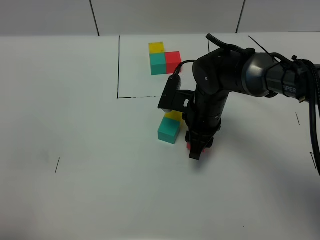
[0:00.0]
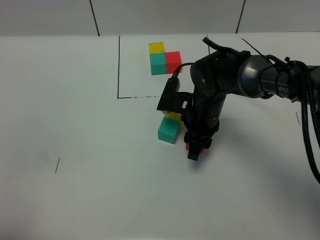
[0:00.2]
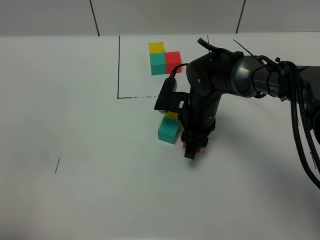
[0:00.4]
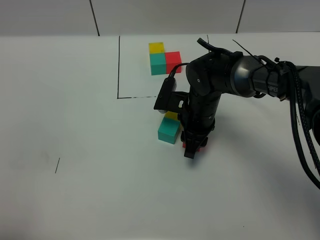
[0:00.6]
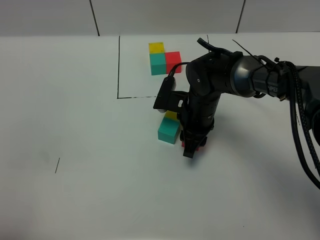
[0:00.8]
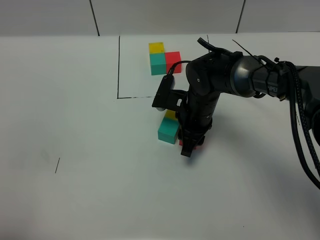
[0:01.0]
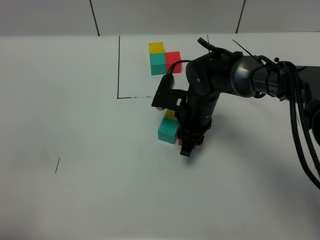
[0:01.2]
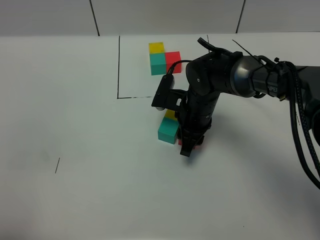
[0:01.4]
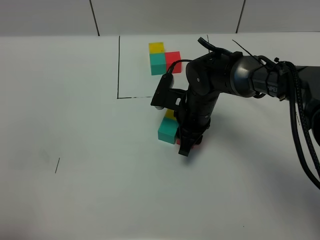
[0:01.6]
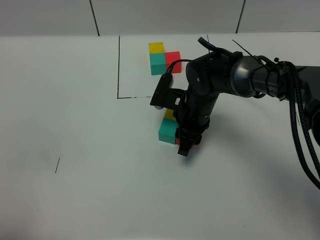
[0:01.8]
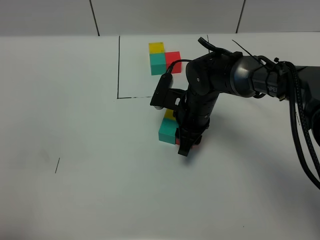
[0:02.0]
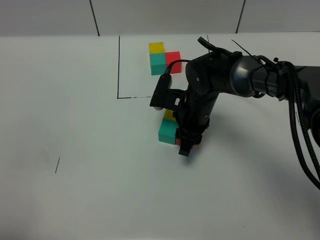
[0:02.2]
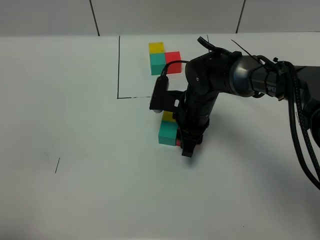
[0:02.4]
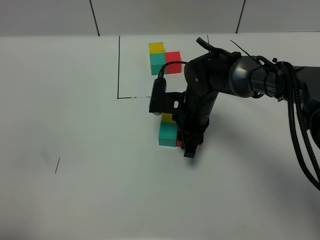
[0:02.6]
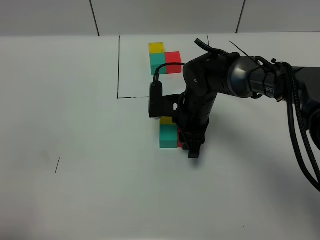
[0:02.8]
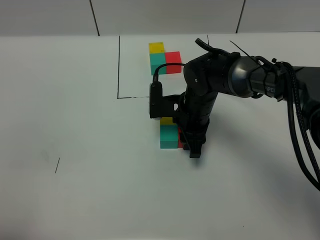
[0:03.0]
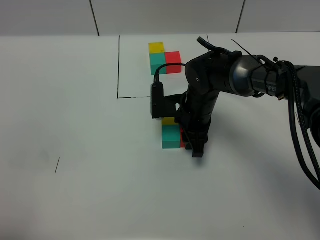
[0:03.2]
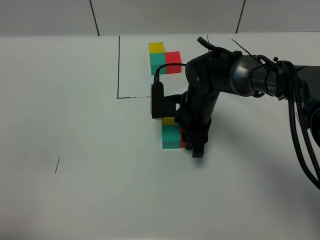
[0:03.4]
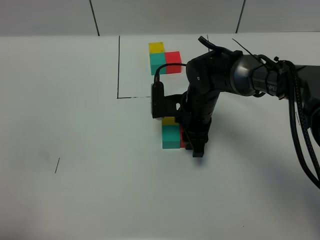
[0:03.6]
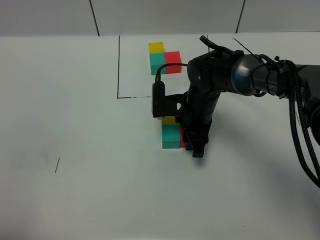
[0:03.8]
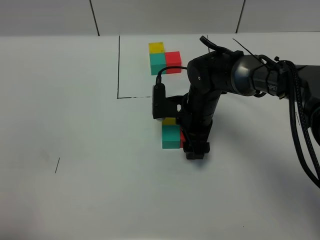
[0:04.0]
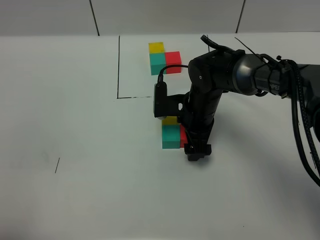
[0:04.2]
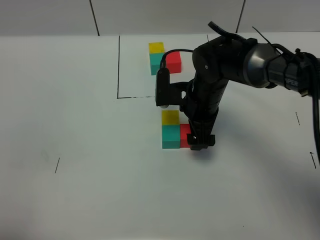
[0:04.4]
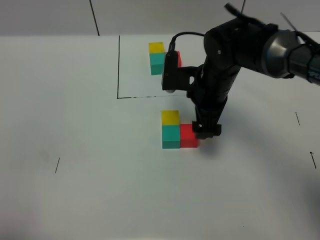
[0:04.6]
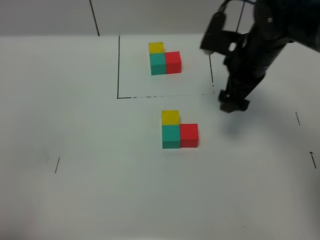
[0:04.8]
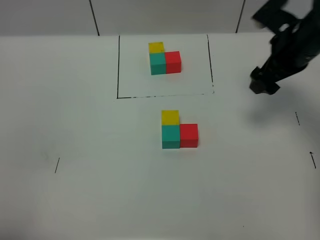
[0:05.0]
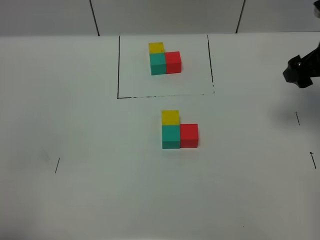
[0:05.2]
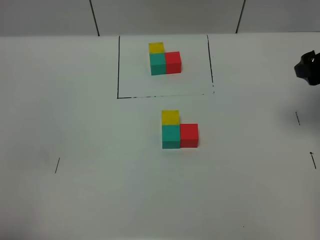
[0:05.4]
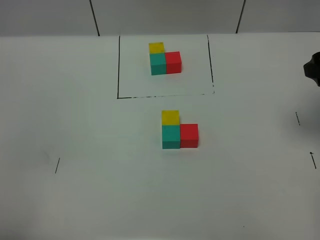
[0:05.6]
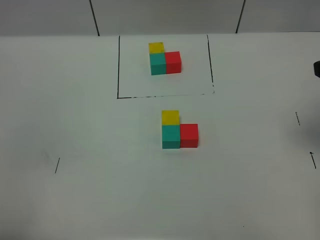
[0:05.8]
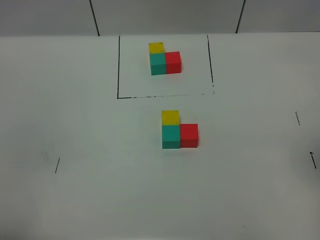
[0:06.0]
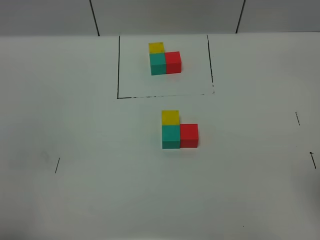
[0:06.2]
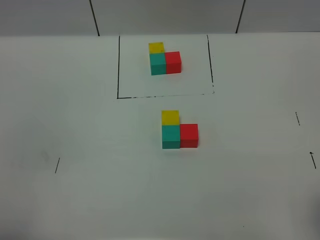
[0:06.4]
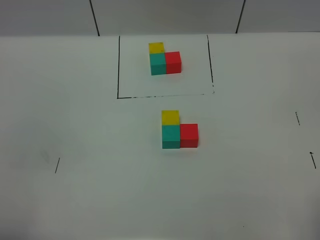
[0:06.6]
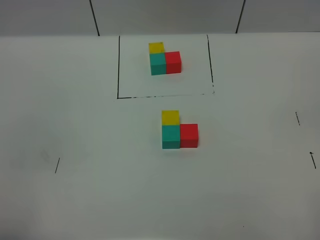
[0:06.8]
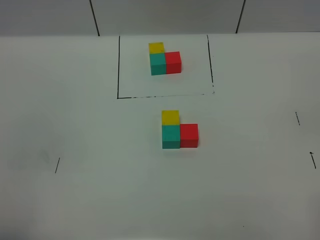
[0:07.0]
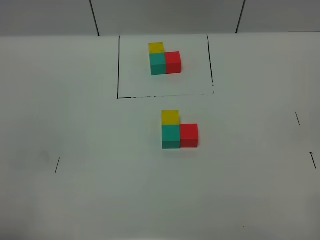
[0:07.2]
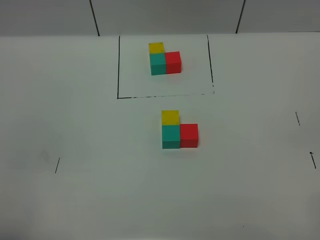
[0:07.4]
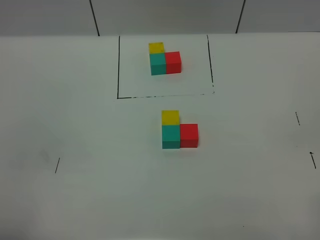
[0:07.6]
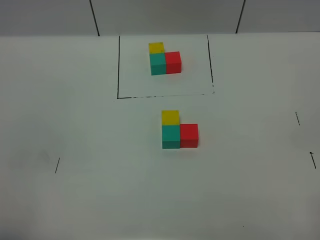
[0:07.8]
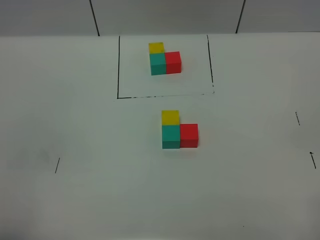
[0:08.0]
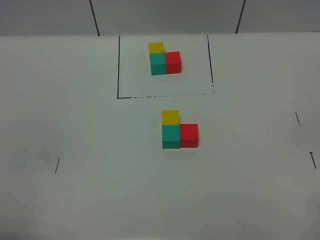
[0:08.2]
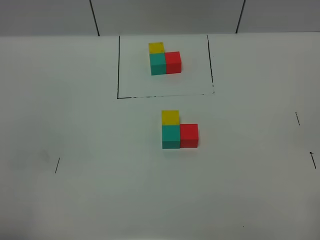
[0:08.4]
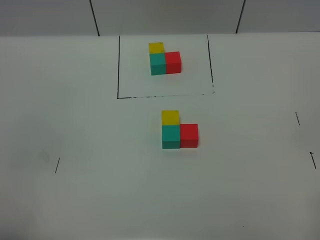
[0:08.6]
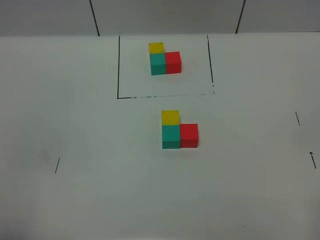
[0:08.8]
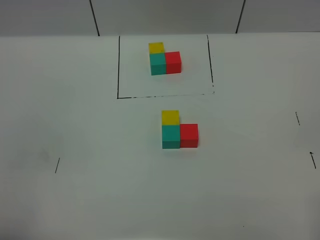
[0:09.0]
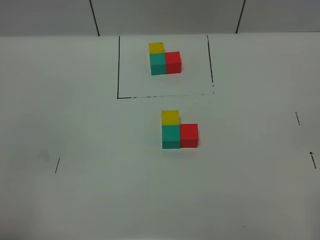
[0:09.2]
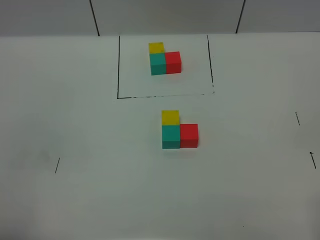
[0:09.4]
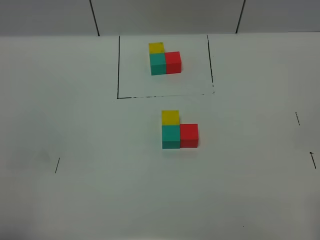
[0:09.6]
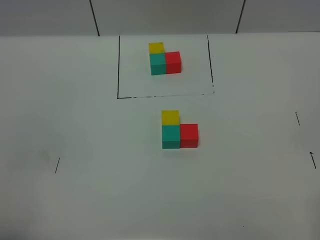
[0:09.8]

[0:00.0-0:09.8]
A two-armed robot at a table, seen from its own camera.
Task of the whole recording: According to the building block template in front, assemble the scattered blocks together.
Step, 0:00.0 to 0:04.0: Put the red build block on the right of the green build block.
0:00.0 to 0:02.8: The grippers move only a little.
0:02.8 to 0:04.2: The right gripper opens up.
0:04.2 to 0:05.6: The right gripper shifts about 30 cm to the right and upward.
0:05.6 to 0:07.0: The right gripper travels backward by about 30 cm.

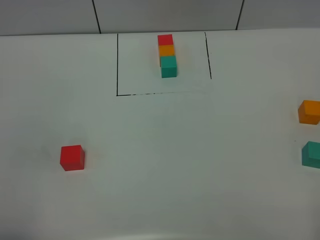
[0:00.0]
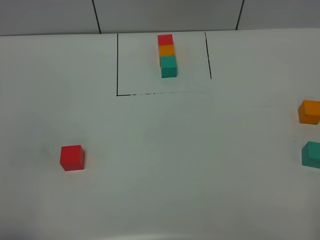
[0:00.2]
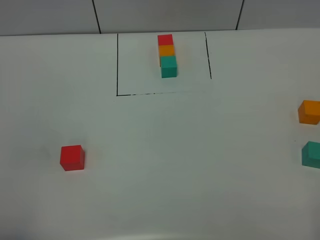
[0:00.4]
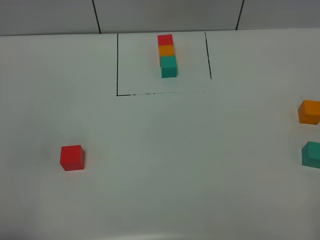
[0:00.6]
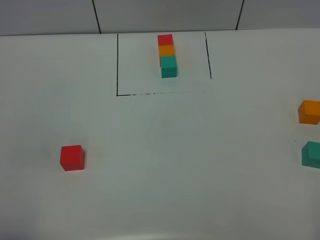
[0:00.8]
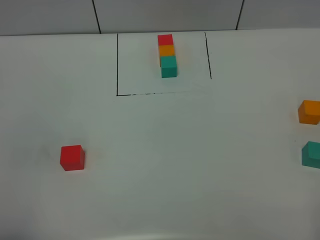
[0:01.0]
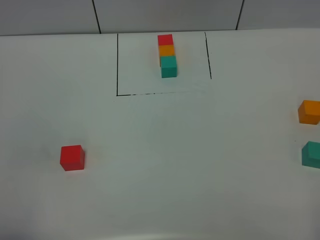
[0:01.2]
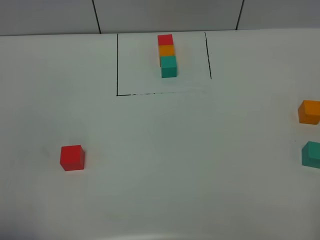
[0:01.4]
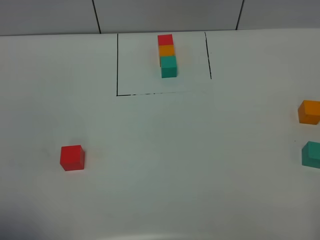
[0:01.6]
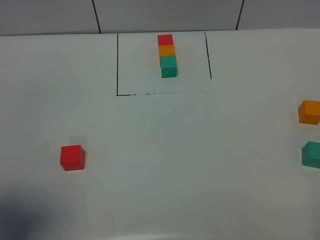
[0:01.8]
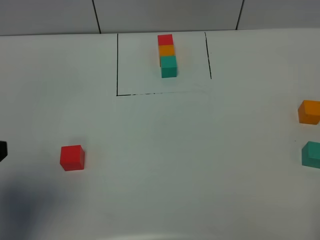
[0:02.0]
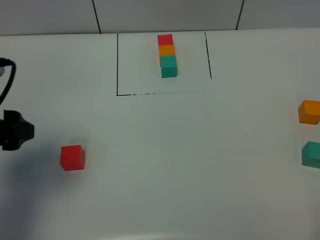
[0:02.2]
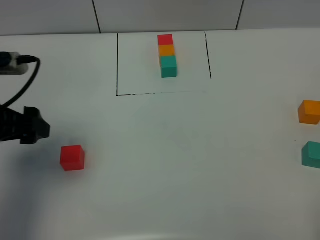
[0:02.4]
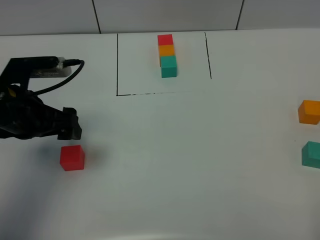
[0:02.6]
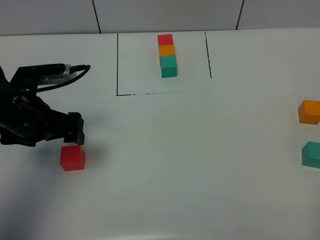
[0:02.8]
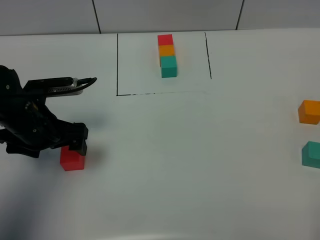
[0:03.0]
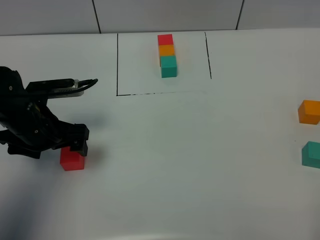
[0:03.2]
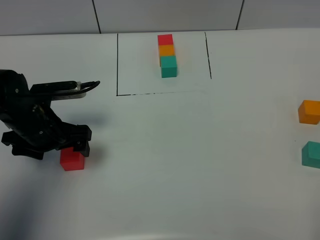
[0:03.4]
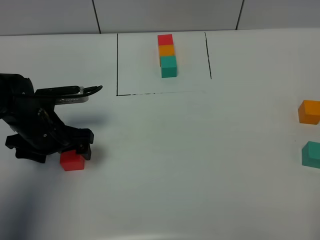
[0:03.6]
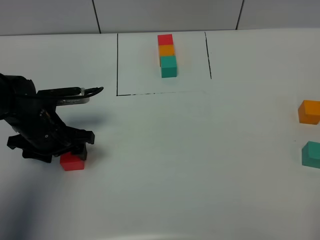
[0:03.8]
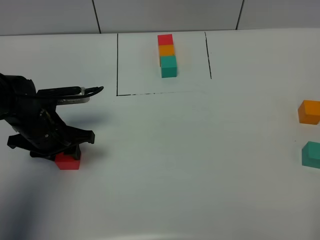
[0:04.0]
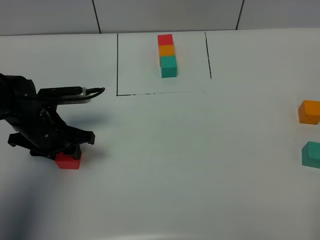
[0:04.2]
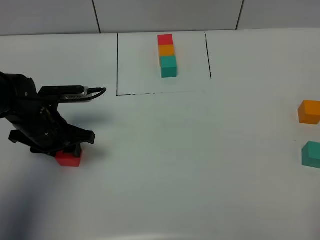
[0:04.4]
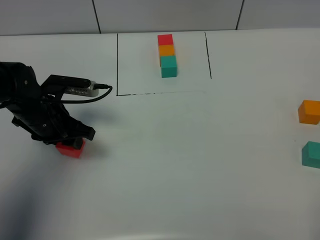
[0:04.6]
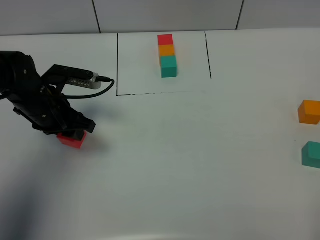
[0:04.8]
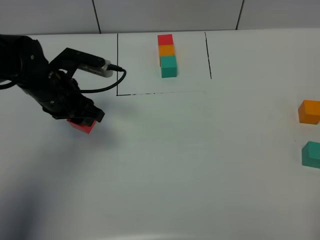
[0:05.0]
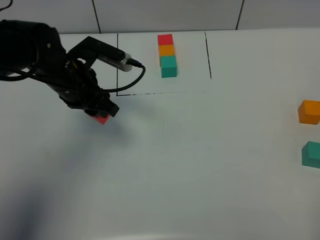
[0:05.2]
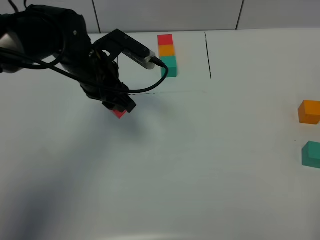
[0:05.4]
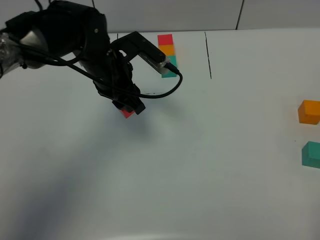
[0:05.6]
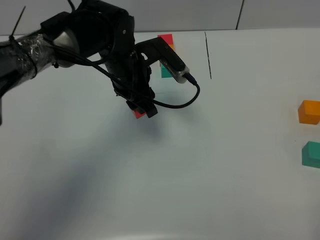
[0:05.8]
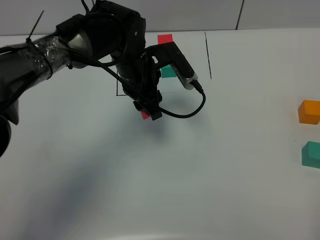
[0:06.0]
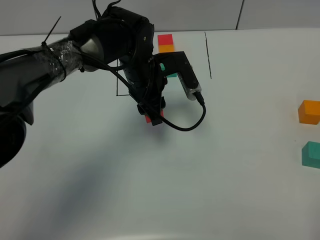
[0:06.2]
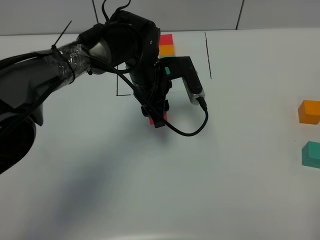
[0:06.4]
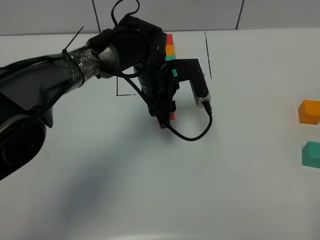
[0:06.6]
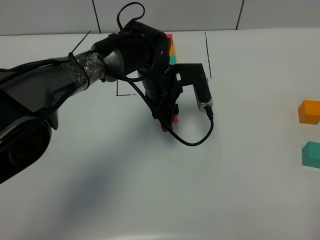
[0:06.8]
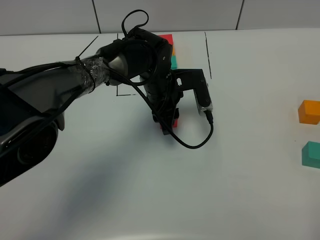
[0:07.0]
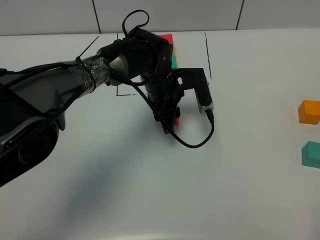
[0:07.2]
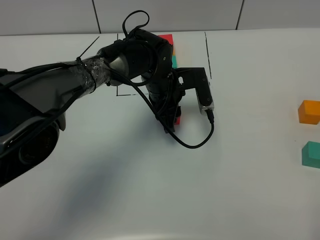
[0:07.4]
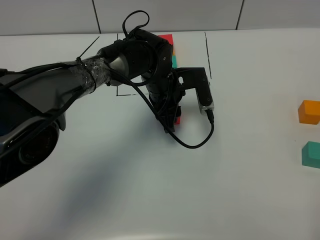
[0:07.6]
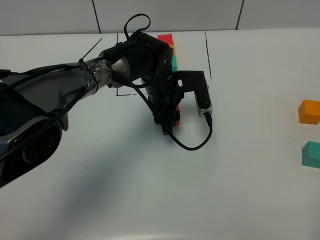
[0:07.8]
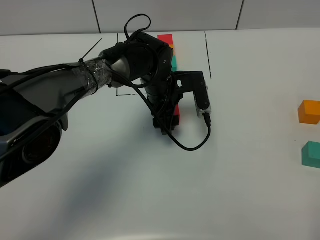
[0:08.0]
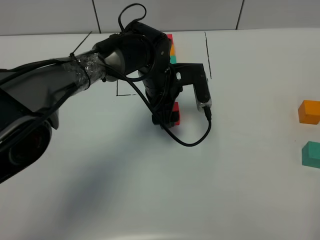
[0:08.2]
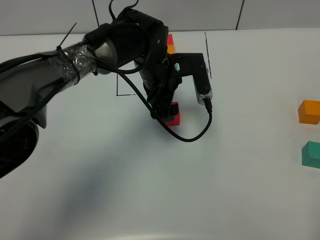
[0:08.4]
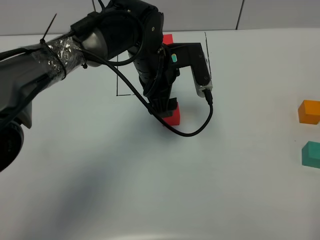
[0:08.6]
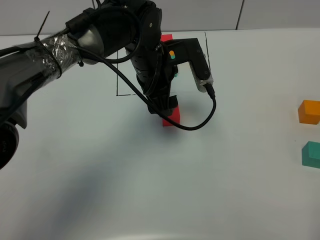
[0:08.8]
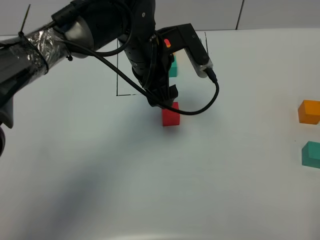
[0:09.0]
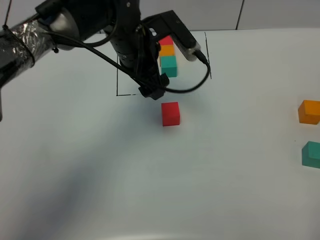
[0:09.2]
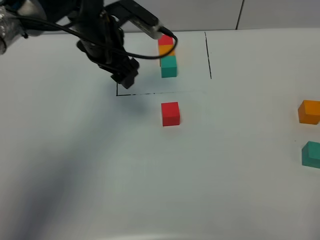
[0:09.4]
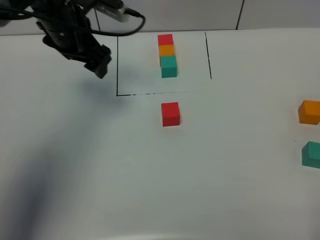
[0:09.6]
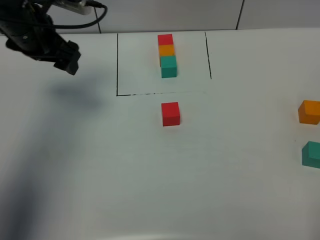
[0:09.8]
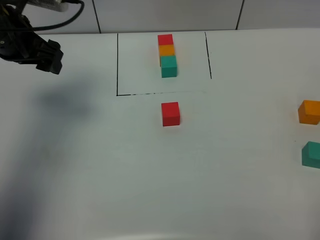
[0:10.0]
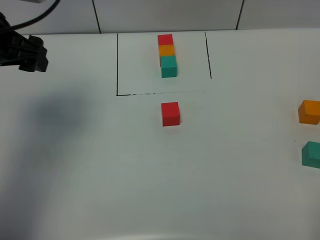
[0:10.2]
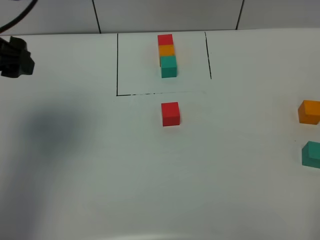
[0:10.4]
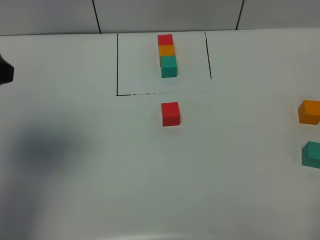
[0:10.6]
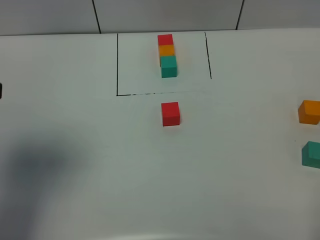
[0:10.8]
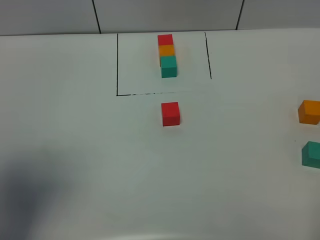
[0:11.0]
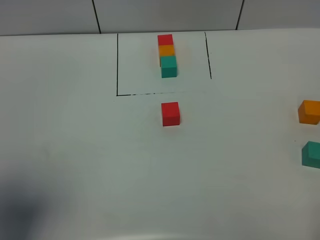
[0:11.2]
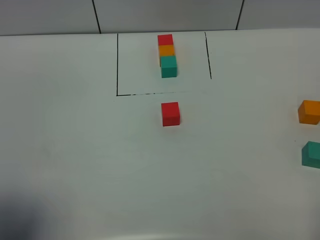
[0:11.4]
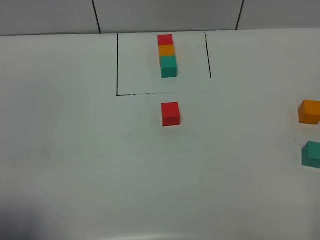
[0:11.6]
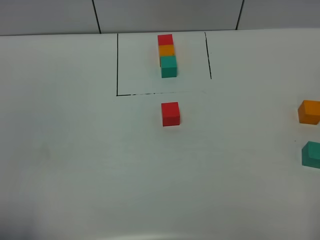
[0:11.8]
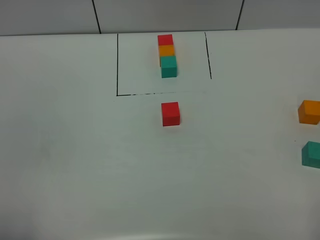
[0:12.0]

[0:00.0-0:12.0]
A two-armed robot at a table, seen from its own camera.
Task of the whole recording: According to the building block template in front, assemble the scattered blocks together.
Step, 0:00.0 to 0:07.8: Put the red build block in the center of the table.
0:01.6 to 0:03.0: The left gripper heads forward and downward, covering roughly 30 cm.
0:03.0 to 0:04.4: The left gripper closes up.
0:04.4 to 0:06.0: The left gripper shifts some 20 cm to the right and forward.
0:06.0 to 0:07.6: The left gripper moves downward, approximately 5 cm.
0:07.6 to 0:09.0: The left gripper goes roughly 10 cm upward, and opens its fingers.
0:09.0 to 0:10.4: The left gripper shifts some 30 cm to the left, upward and backward.
0:10.4 to 0:12.0: The left gripper heads backward, covering roughly 30 cm.
